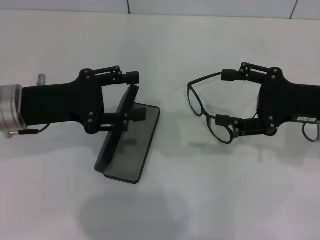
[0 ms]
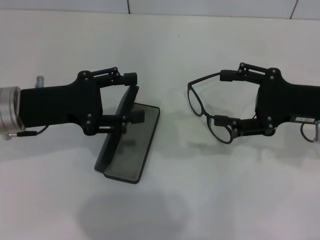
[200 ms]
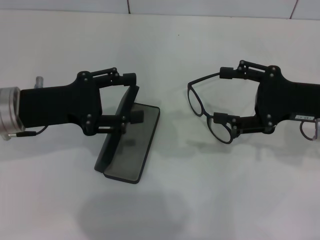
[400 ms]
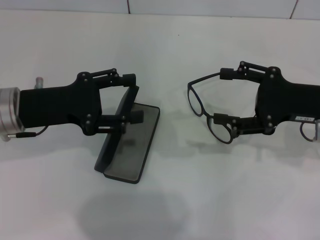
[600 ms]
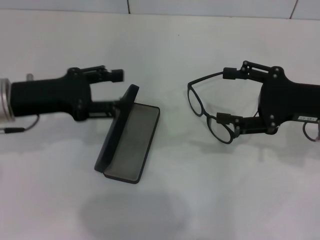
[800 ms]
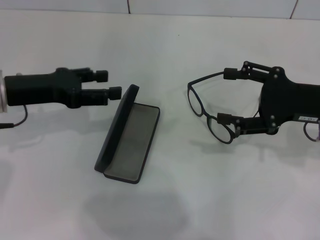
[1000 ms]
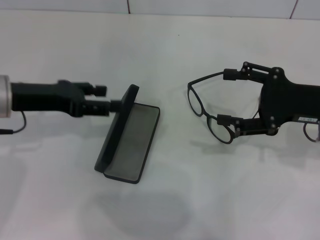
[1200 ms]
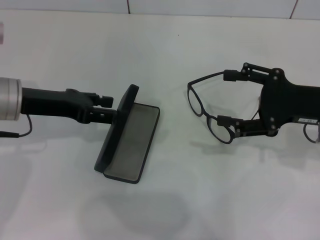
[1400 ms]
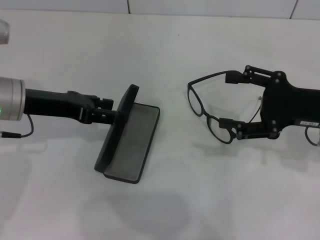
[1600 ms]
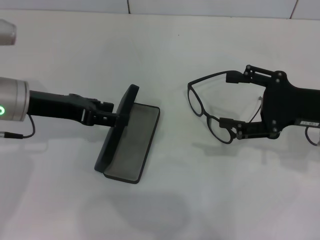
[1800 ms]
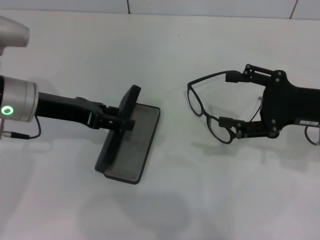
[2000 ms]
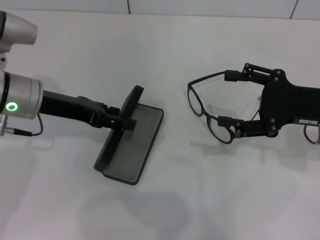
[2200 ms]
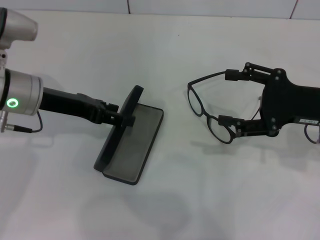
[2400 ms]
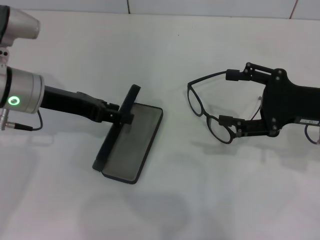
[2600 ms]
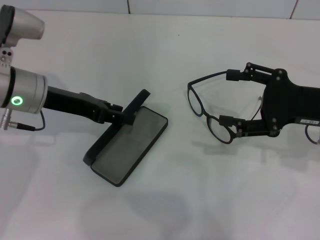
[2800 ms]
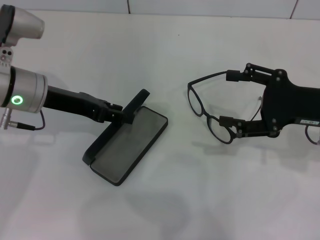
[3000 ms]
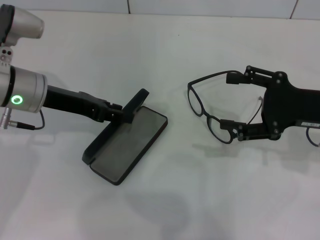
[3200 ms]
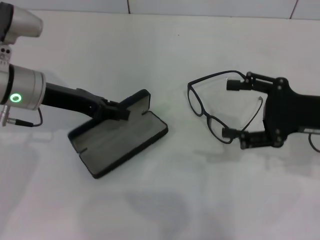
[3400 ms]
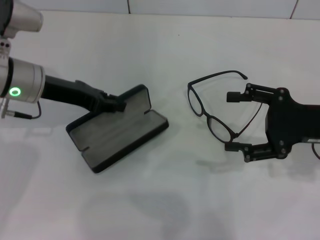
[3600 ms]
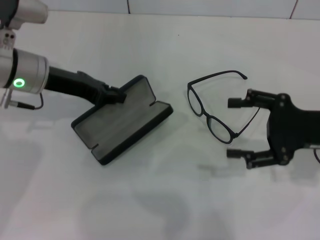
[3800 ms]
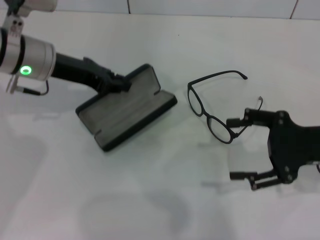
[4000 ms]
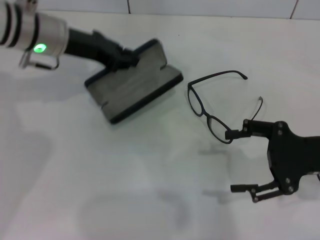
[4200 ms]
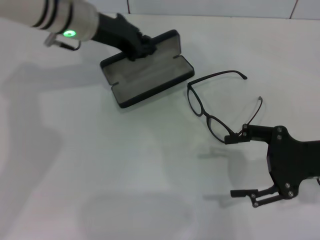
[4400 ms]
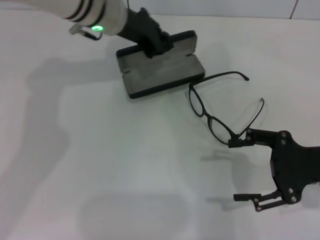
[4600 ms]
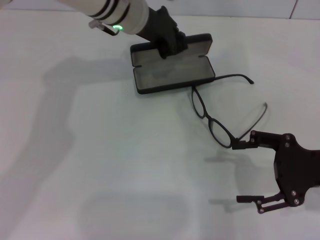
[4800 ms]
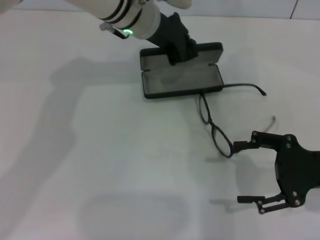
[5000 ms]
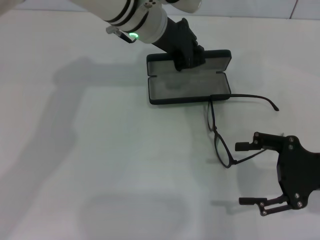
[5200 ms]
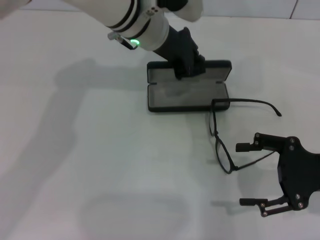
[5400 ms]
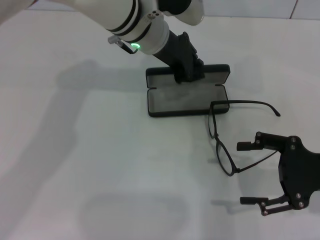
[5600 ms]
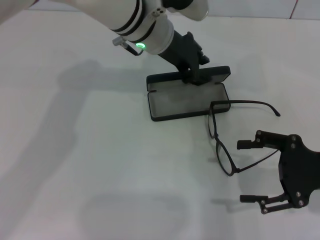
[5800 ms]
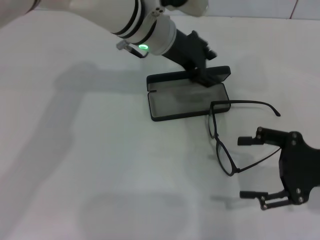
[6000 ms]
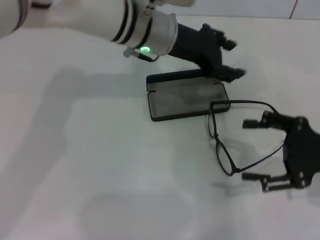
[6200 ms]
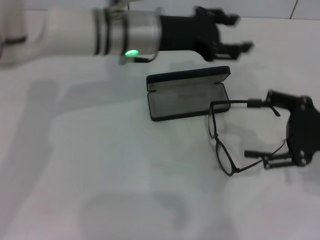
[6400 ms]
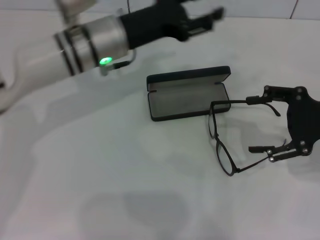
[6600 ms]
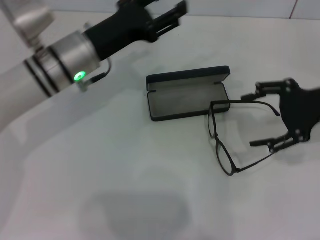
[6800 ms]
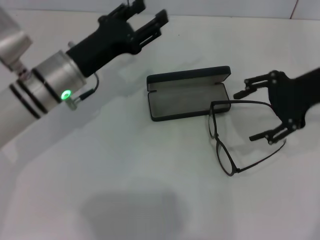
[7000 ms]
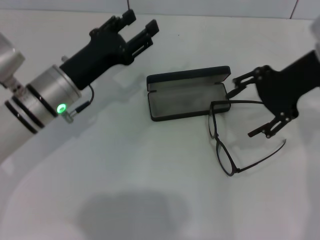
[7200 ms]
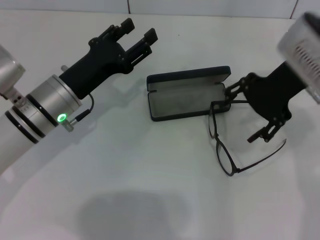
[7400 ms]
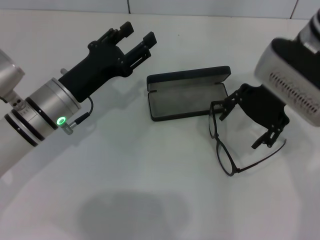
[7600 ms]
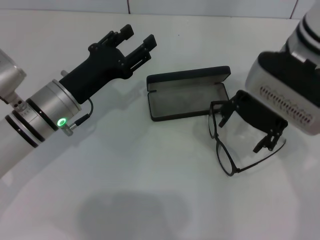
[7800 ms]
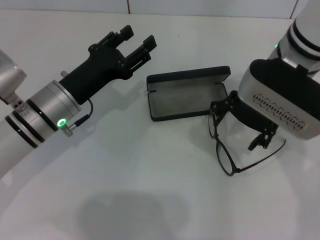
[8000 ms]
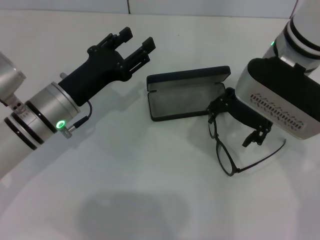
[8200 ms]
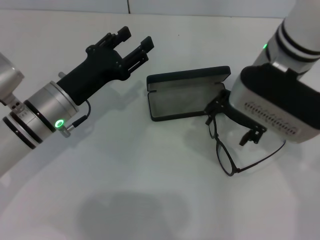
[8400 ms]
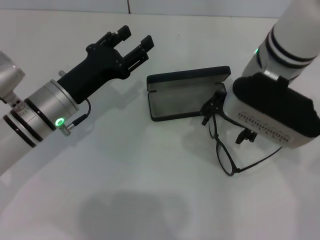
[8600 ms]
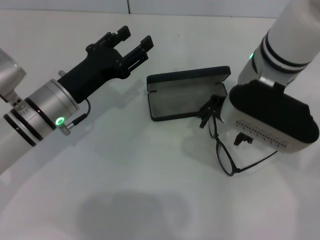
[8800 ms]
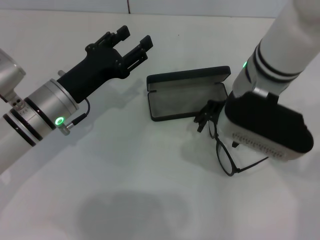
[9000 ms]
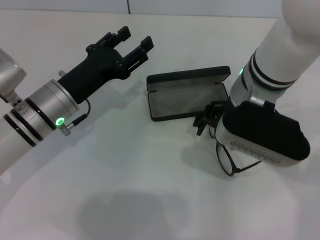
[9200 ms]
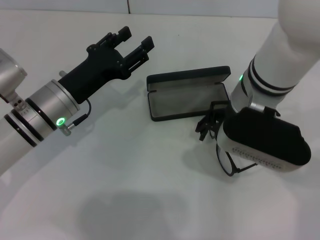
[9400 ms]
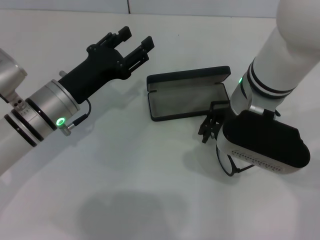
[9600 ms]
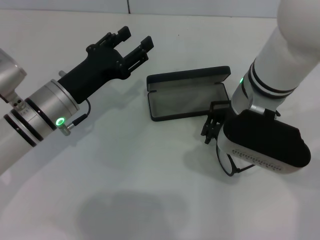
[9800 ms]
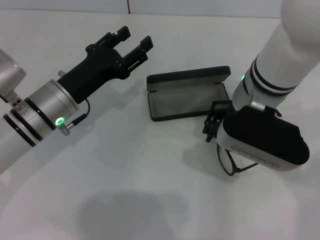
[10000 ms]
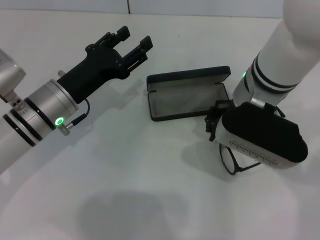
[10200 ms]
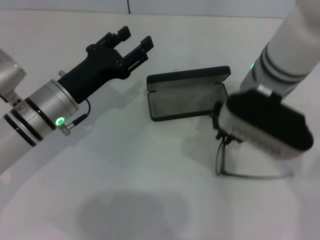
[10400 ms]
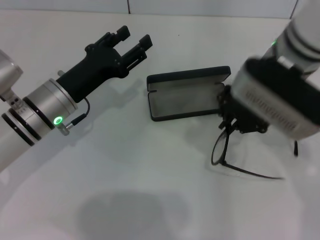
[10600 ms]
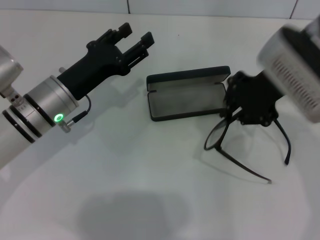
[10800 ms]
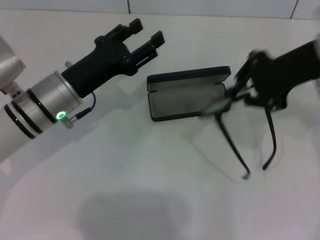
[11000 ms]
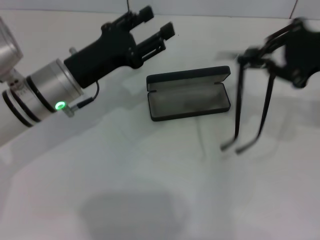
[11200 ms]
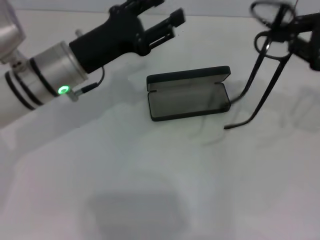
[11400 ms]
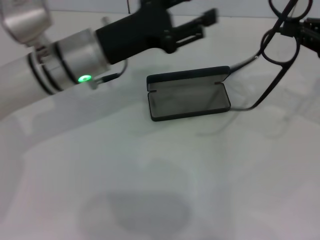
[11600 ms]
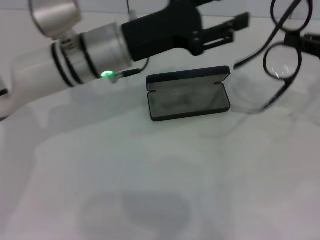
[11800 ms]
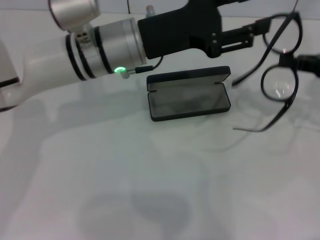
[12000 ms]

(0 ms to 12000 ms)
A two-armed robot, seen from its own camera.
Step, 0 ms - 3600 ms: Grab the glasses case with your left hand.
Step, 3800 ms - 5600 ms: Place the glasses case in the center of the table with your left hand.
Step, 5800 ms - 10400 ms: Grab the eyeglass frame with your right hand.
1600 ms - 3000 ms: The left gripper closes its fingers.
3000 ms - 4400 ms: The left gripper travels forward and to the right by roughly 10 cm, and closes up.
4400 ms - 6000 ms: The left gripper goes roughly 10 cm to the right.
6000 ms - 7600 ms: The left gripper travels to the left, backward and downward by approximately 20 cm, and opens its fingers. The right gripper travels to the left, forward and upward by approximately 20 cm.
7600 ms - 9000 ms: The right gripper shifts roughly 5 cm to the left.
9000 ms - 10400 ms: The right gripper closes up.
10400 ms - 12000 ms: The left gripper goes approximately 15 cm to the right and upward. Meanwhile the right gripper shifts approximately 25 cm to the right.

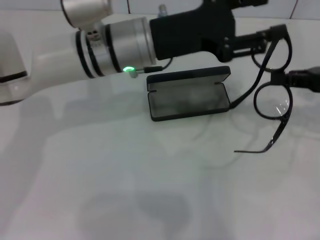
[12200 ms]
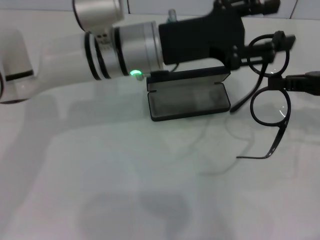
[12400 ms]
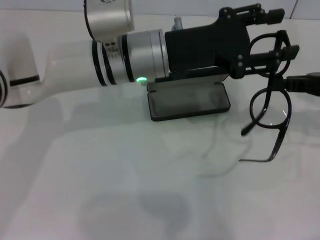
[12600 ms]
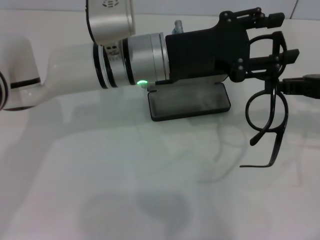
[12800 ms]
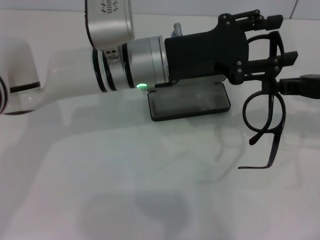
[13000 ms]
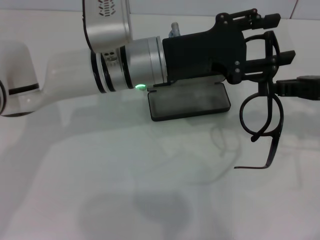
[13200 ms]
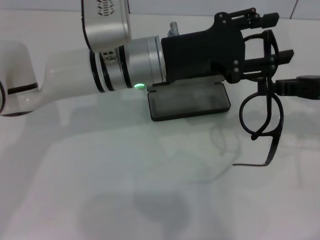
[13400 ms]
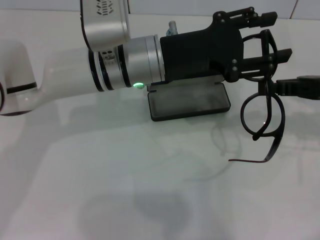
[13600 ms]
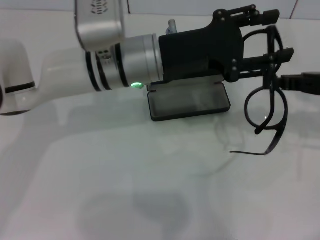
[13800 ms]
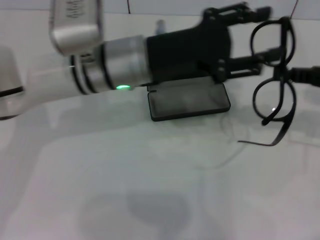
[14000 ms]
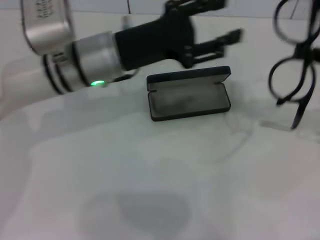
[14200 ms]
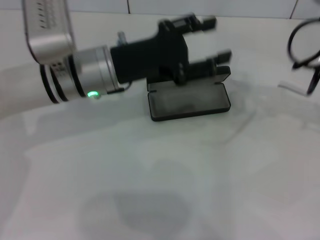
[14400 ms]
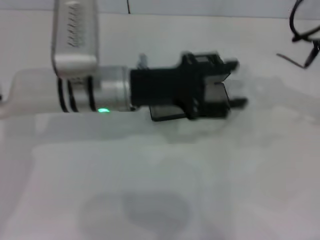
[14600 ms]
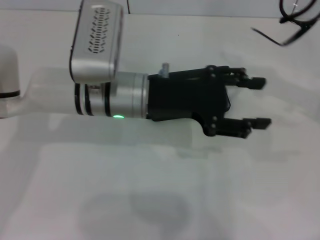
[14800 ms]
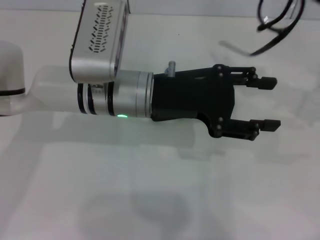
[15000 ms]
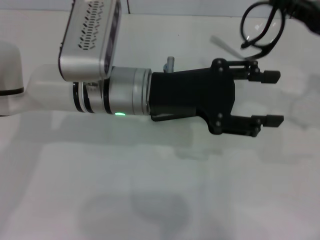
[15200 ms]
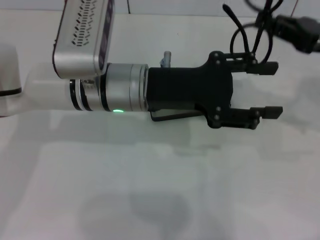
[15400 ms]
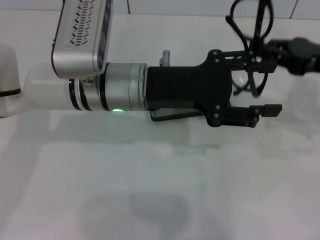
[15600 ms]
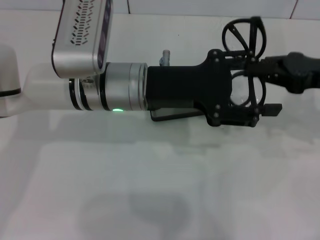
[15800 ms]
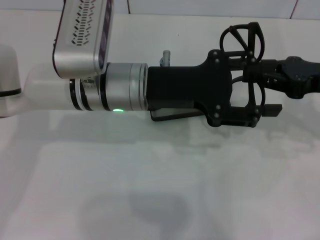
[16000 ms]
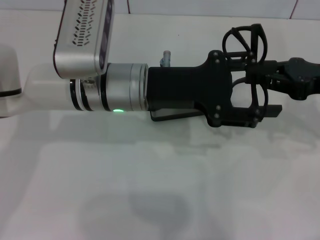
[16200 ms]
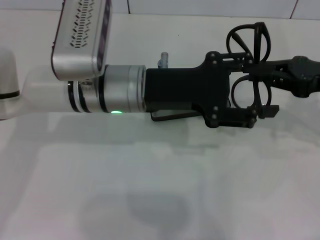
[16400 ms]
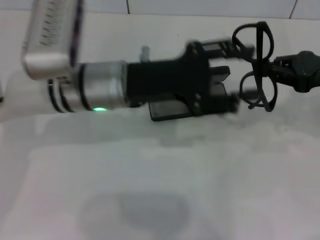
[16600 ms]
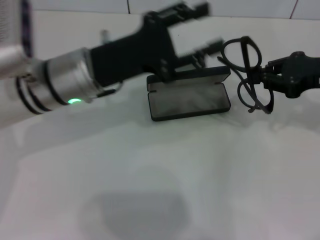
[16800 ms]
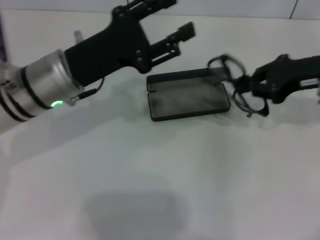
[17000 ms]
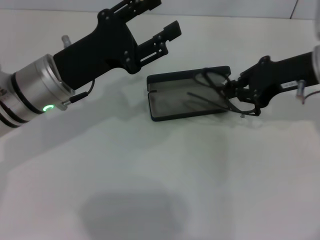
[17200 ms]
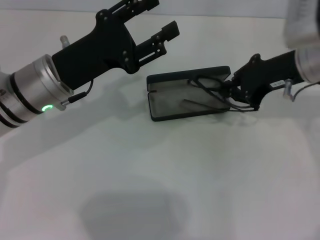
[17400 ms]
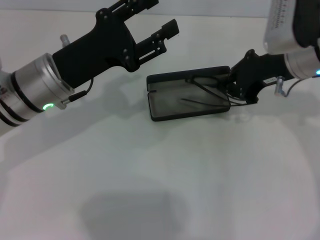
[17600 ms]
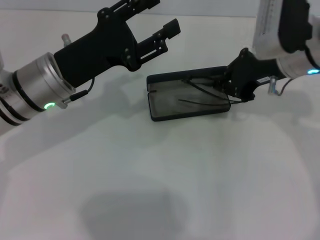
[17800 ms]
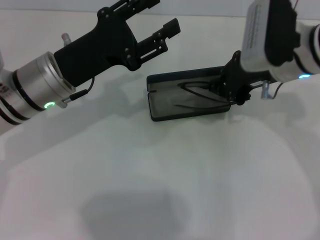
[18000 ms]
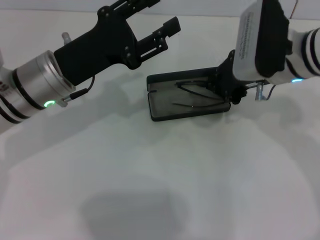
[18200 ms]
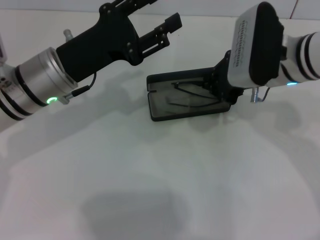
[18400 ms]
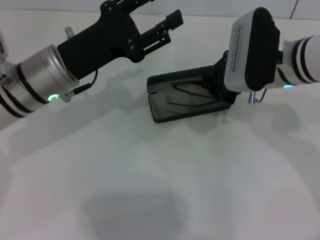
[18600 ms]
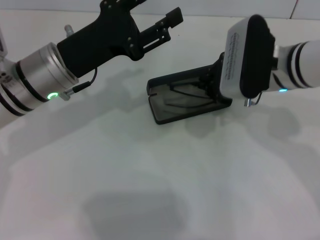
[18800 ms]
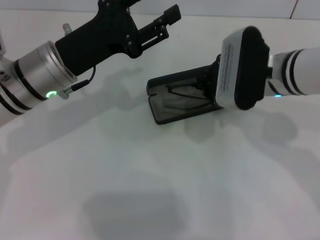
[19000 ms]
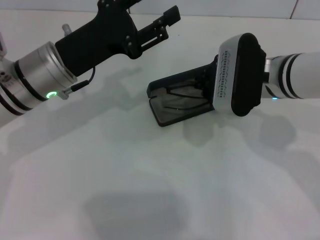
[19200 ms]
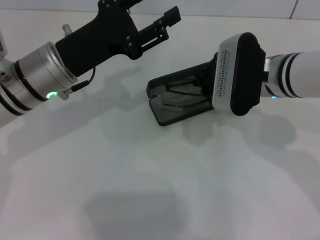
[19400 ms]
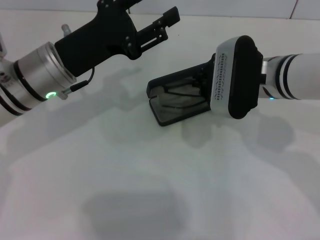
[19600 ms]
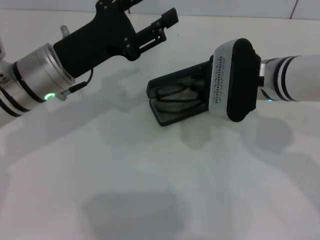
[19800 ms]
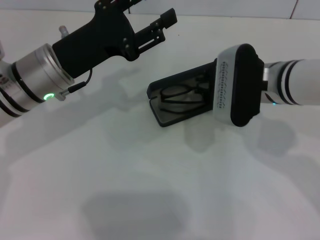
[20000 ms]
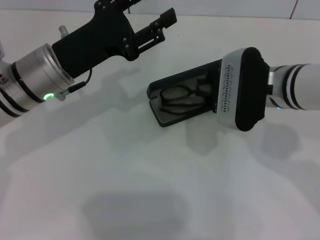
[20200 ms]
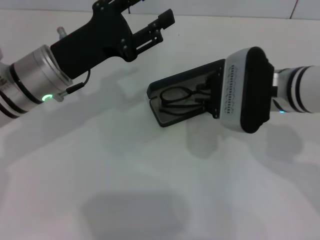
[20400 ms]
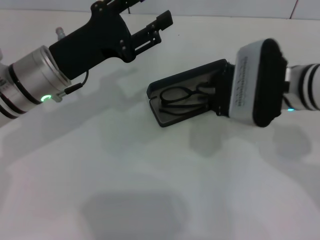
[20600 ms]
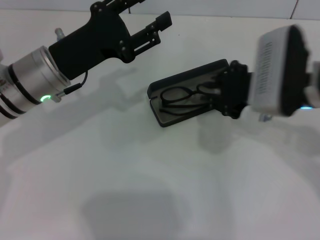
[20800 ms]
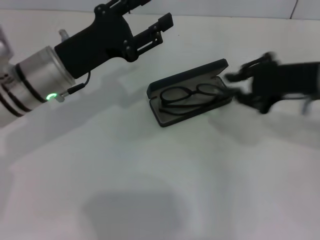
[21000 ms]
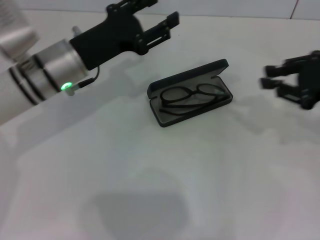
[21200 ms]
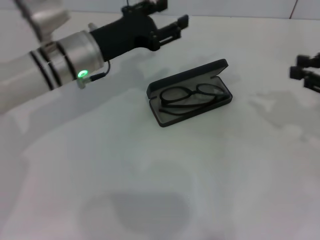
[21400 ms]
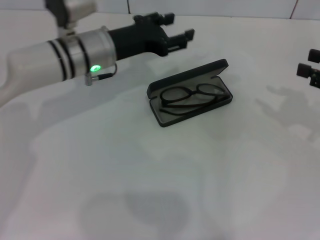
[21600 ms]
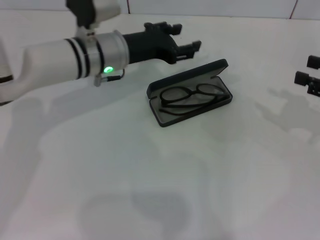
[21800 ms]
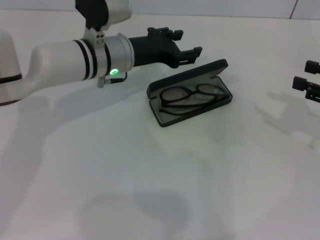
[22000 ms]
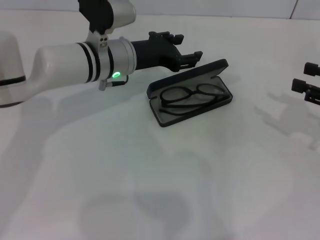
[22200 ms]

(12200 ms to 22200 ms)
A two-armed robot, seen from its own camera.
Step, 12200 ms - 16400 ms: Fold the frame with your left hand.
Step, 16600 ms - 20400 ms: Put the glasses into the case with your right hand.
16400 ms - 18000 ms: The grippers both shift to the left by roughly 10 cm.
19400 ms - 20800 ms: The grippers make only small movements.
20800 ms - 22200 ms: The left gripper heads to the right and forward, covering about 10 cm. The right gripper is displaced to the right by about 20 cm, and opens.
